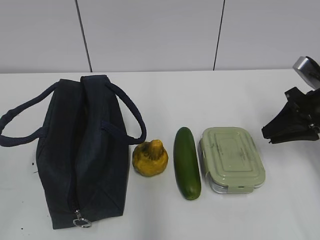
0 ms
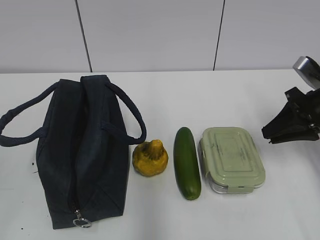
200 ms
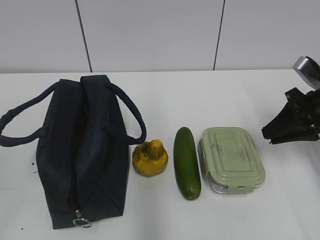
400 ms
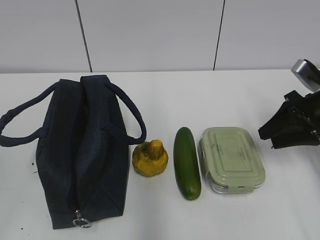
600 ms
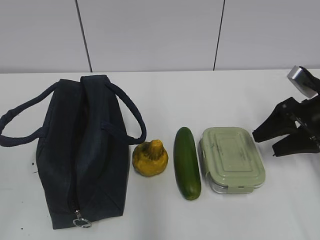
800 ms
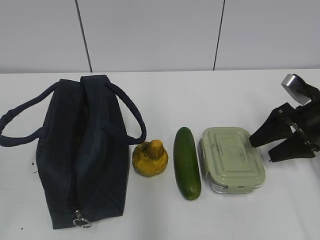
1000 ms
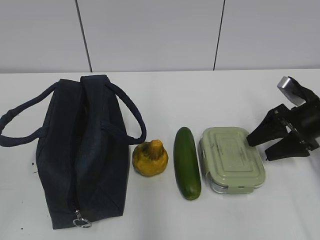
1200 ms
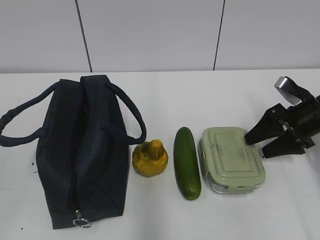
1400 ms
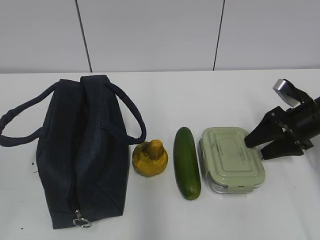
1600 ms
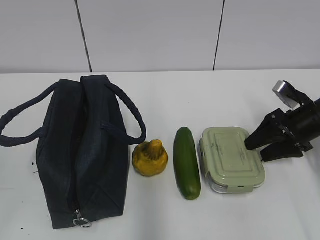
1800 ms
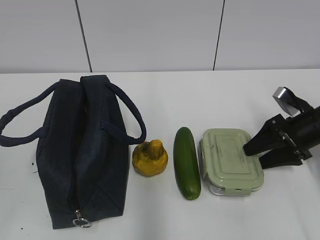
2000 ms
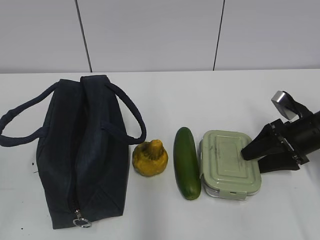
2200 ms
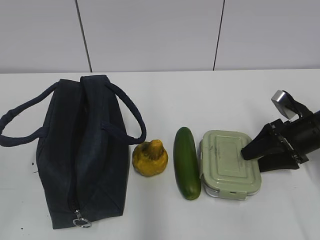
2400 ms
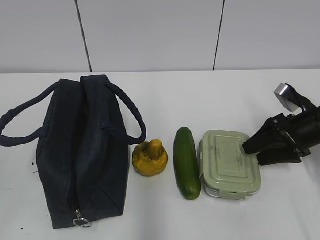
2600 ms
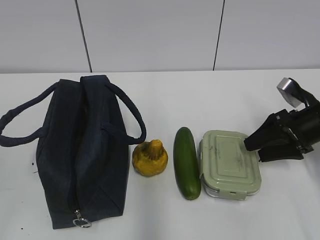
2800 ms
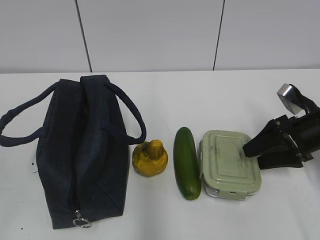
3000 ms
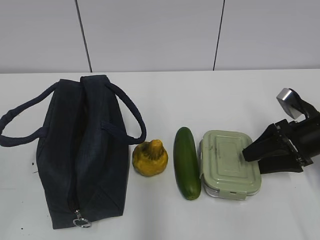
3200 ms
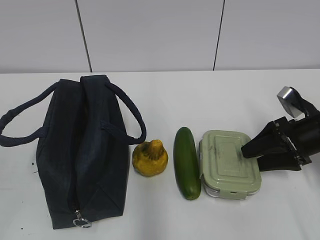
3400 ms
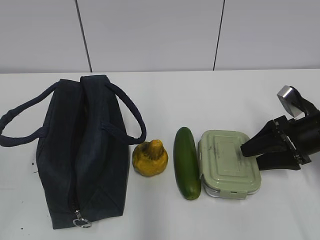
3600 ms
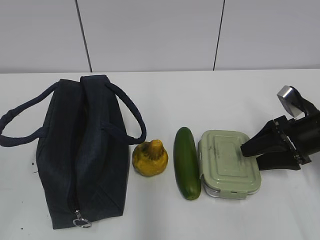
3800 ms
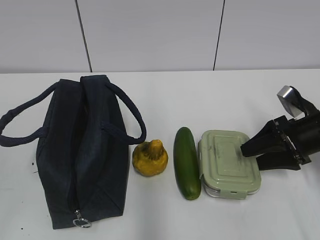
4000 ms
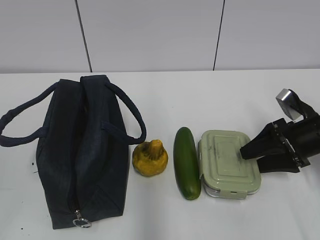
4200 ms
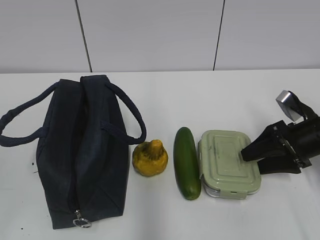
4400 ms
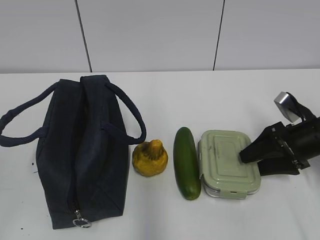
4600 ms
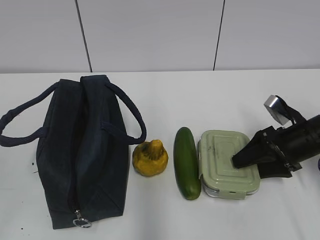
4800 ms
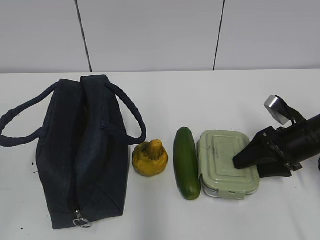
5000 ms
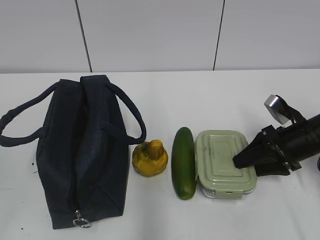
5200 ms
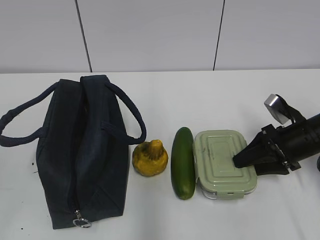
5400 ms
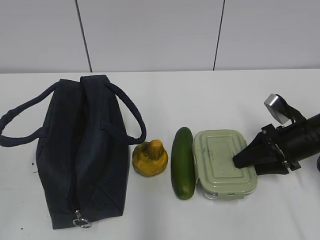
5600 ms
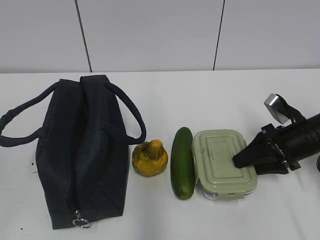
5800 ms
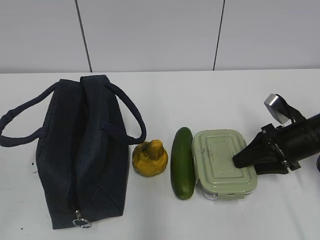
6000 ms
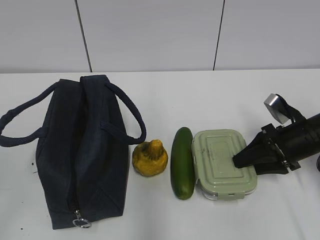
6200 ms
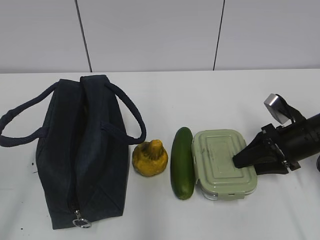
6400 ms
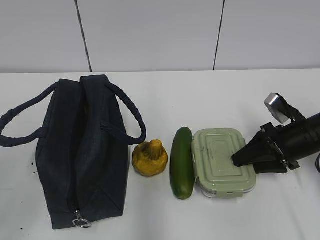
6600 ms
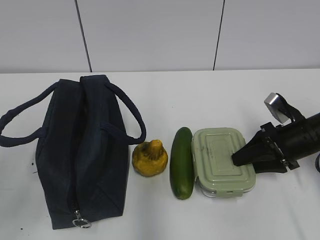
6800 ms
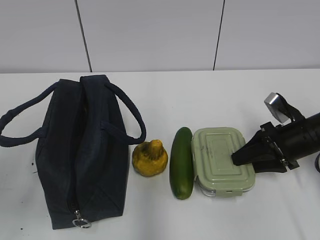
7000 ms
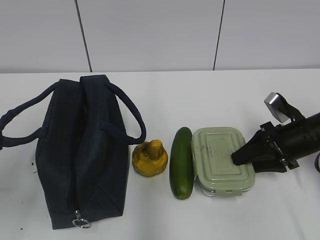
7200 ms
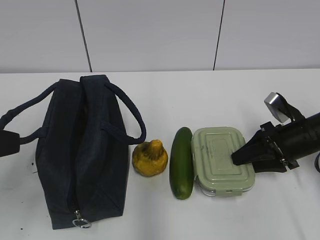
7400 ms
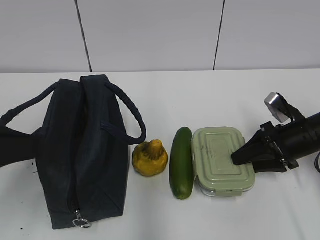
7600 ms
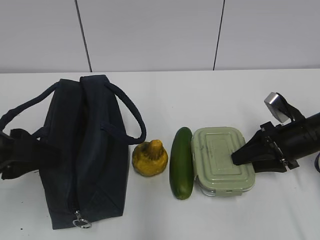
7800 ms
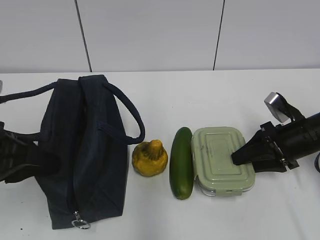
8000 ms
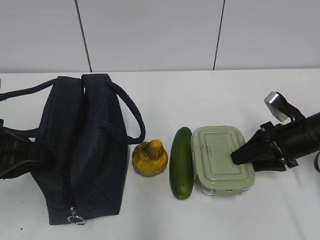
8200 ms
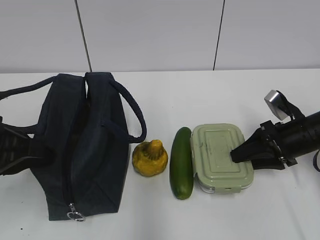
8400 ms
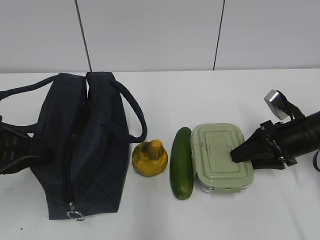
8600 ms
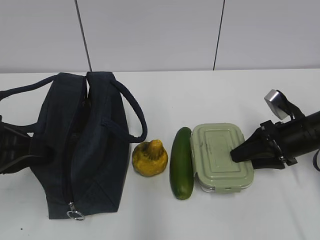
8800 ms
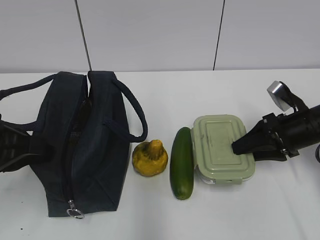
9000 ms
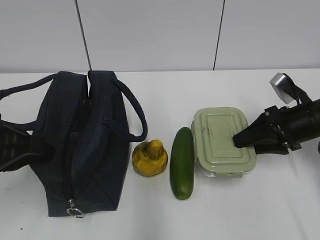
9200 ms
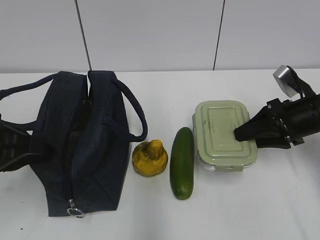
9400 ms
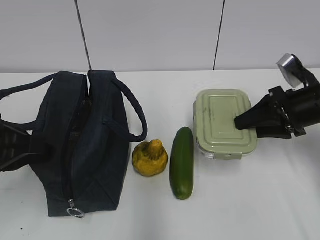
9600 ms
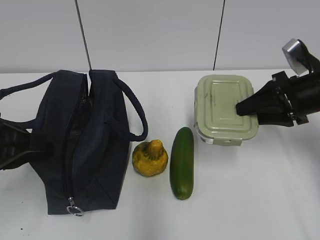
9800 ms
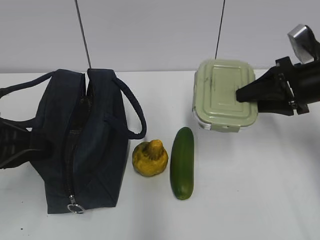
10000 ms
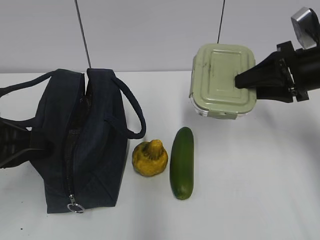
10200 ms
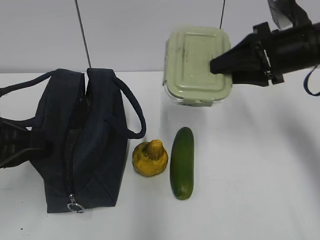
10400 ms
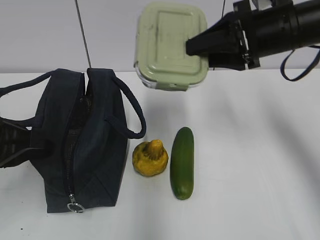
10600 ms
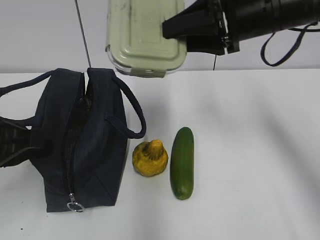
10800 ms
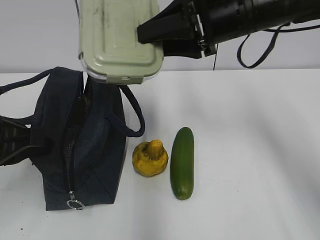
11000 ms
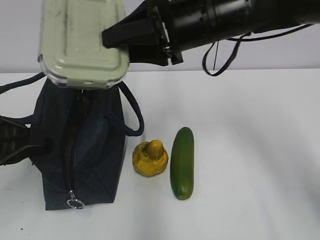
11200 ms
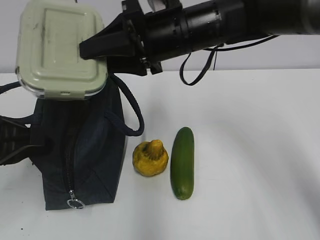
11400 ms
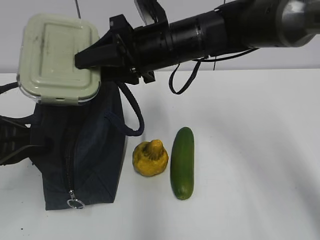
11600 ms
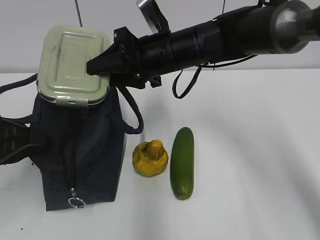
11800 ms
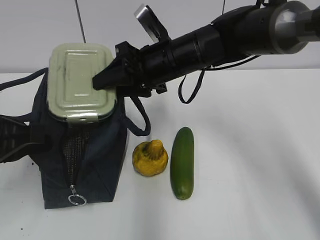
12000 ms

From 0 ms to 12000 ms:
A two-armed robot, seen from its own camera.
Step, from 0 ms to 8800 ms: Grab the lunch box with your right hand.
From 0 ms to 1600 ms: The right gripper goes roughly 5 cm downward, and opens.
From 1600 ms to 3000 ms: The grippers move only a little.
From 3000 ms to 4400 ms: Both grippers stay put.
From 4400 ms to 6000 ms: The right gripper closes its fingers.
From 6000 ms to 7600 ms: The left gripper moves forward and to the right, about 15 cm, and opens up.
From 7600 ms to 9000 ms: The left gripper moves some 5 cm, and closes its fingers.
From 9000 ms to 10400 ms: The right gripper shifts roughly 15 cm upward.
From 10400 ms to 12000 ms: The right gripper shifts approximately 20 cm to the left.

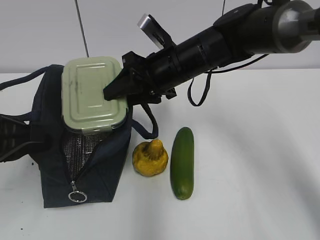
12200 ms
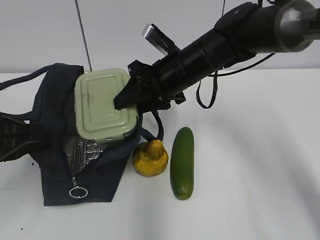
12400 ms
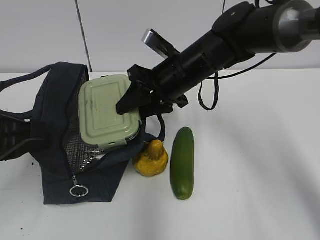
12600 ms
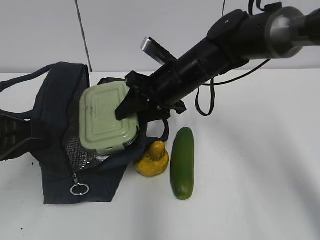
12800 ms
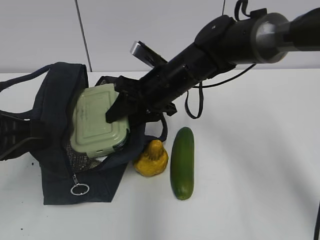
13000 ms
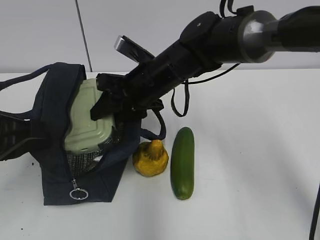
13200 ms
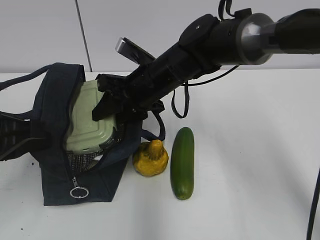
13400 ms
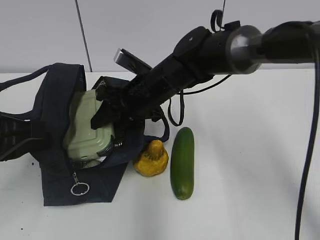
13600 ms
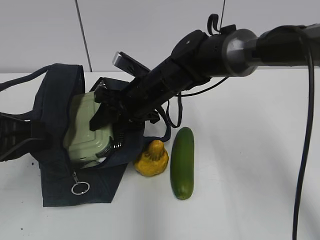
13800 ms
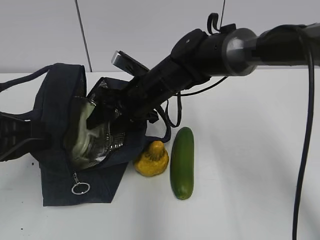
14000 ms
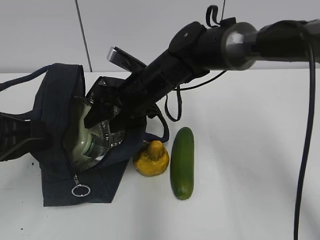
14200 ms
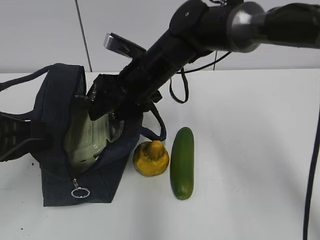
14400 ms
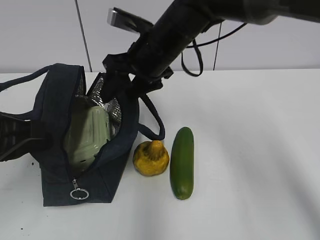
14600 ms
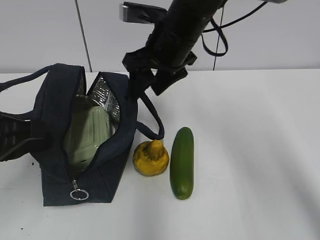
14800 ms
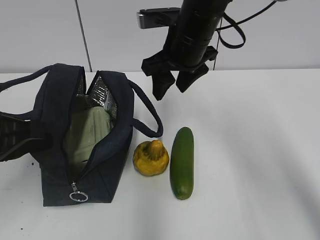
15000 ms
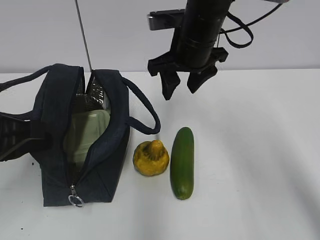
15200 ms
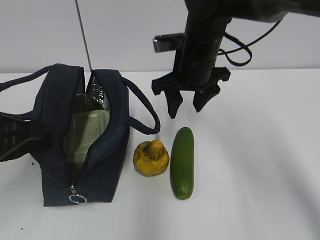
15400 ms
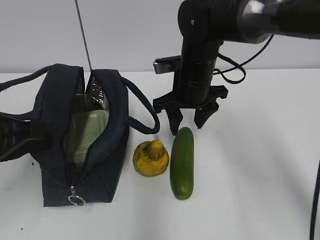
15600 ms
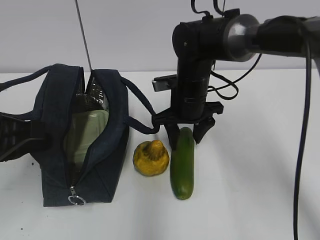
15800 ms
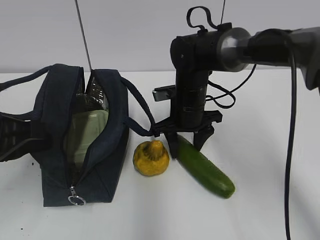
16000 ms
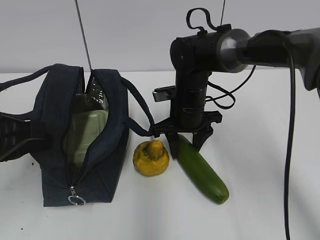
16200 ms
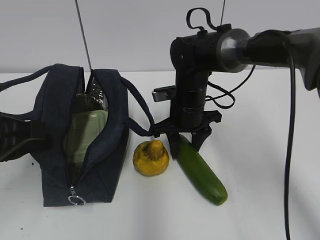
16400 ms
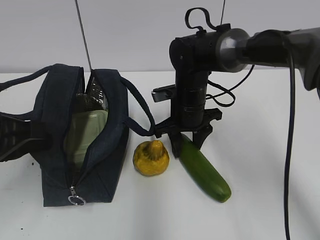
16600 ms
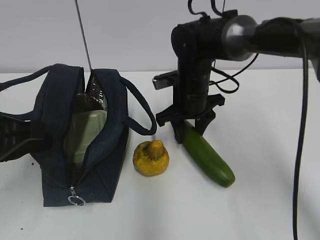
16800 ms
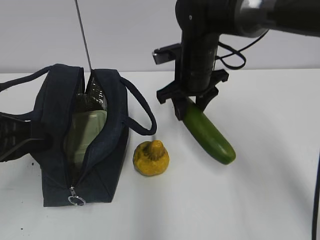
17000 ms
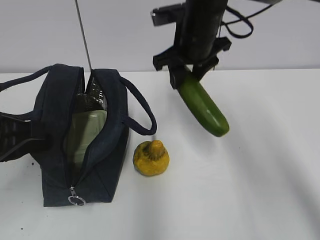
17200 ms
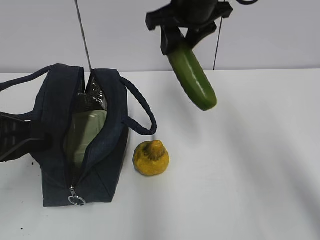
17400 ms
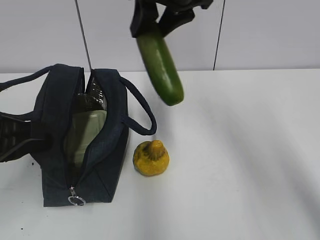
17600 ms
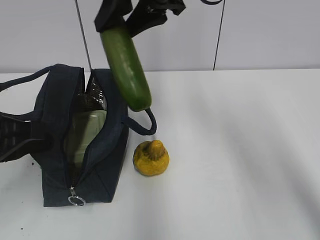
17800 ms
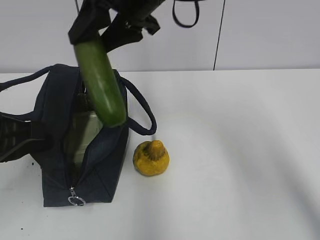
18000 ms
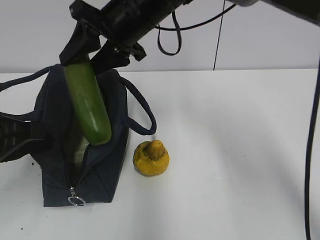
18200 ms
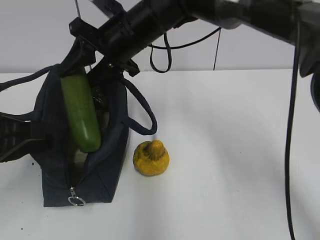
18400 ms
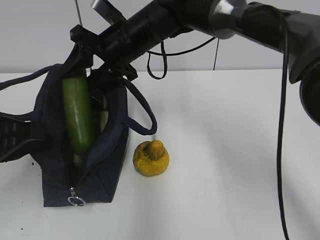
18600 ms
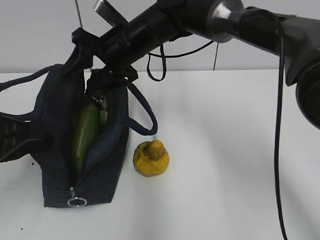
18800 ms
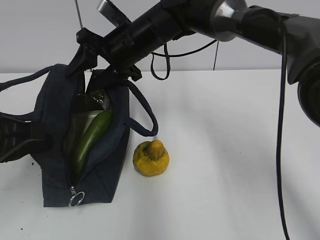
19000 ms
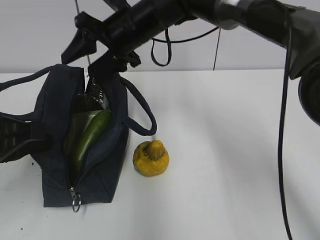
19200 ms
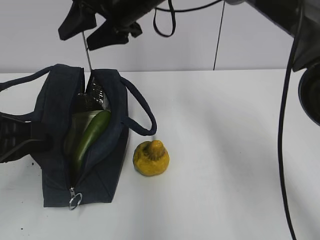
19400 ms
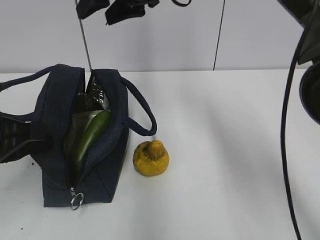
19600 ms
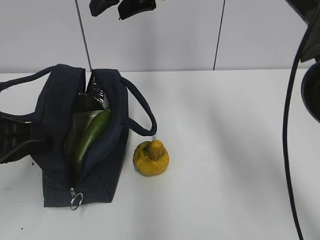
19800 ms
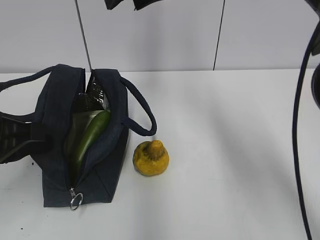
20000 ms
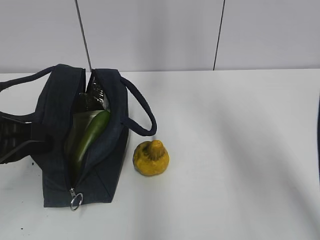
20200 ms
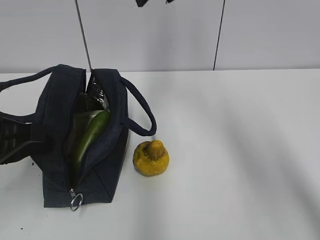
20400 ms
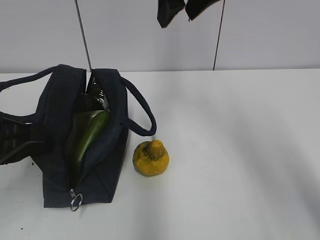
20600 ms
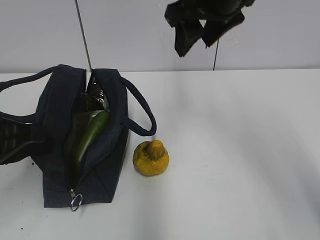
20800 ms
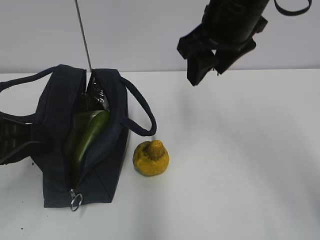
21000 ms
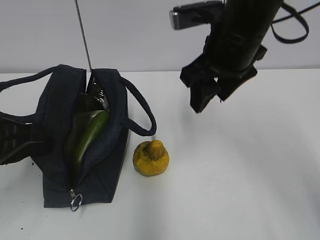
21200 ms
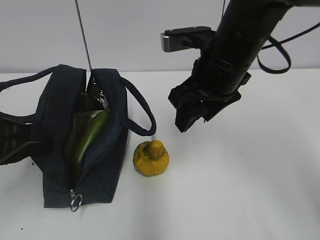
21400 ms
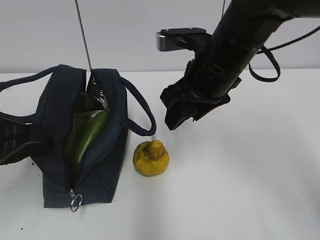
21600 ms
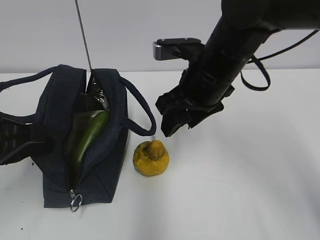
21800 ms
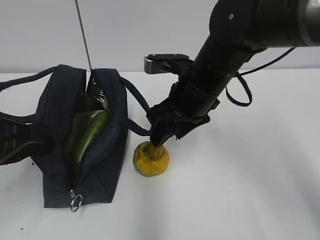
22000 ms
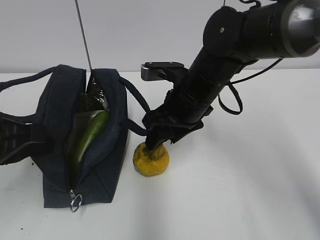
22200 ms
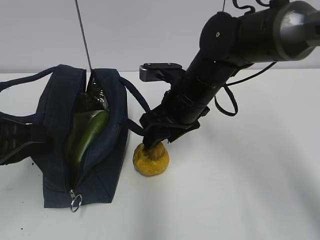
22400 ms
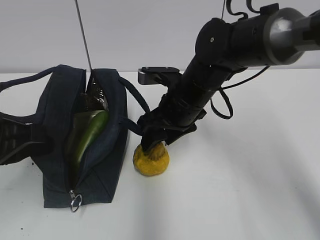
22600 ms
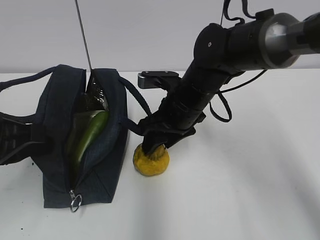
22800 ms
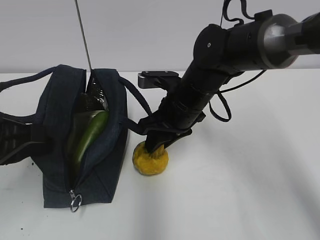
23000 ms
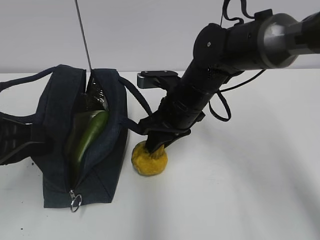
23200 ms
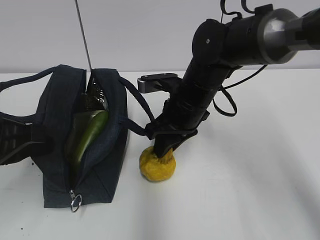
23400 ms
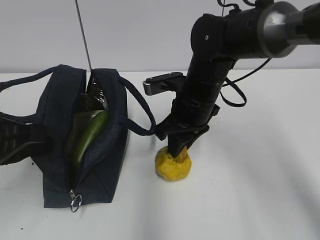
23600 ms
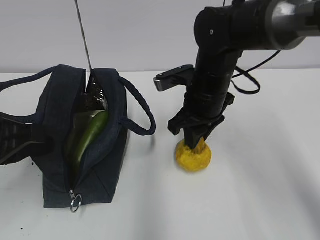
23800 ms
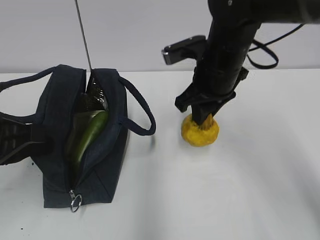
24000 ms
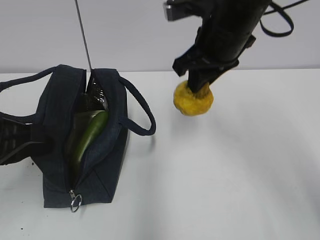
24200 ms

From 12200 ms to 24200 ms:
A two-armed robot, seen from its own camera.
Step, from 12200 ms to 14200 ms: Place it into the bag with your right hand.
Step, from 14400 ms to 16400 ms: Grab the cucumber with your right hand.
Step, from 16800 ms to 18800 ms: Place it into the bag with your right hand.
Step, from 19000 ms to 23200 ms: Grab the pear with your right hand.
From 12200 ms to 13800 ms: The right gripper goes about 5 cm to the left and downward.
From 13800 ms to 15200 ms: The right gripper travels upward and to the right by some 10 cm.
From 15200 ms to 16600 ms: The right gripper goes some 15 cm downward.
From 16600 ms to 18200 ms: The right gripper travels upward and to the left by roughly 20 cm.
From 18200 ms to 19800 ms: The right gripper travels upward by approximately 5 cm.
From 19800 ms to 21200 ms: The right gripper travels backward, to the right and downward by some 15 cm.
From 21200 ms to 22600 ms: The right gripper travels downward by some 10 cm.
From 22600 ms to 24200 ms: The right gripper is displaced upward by approximately 15 cm, and closes its fingers.
